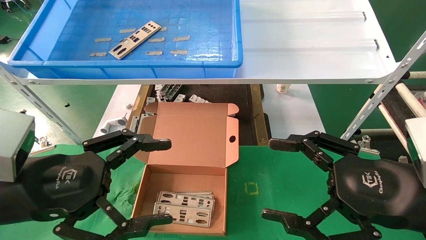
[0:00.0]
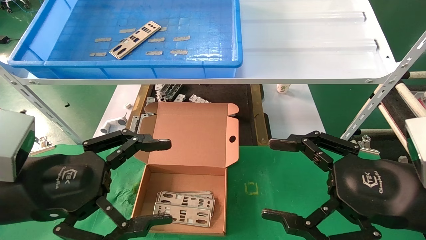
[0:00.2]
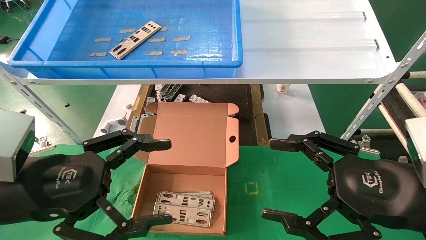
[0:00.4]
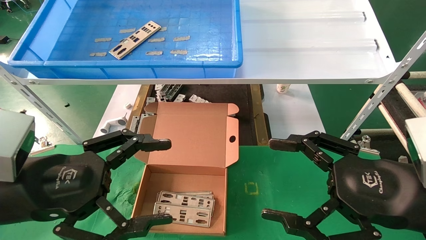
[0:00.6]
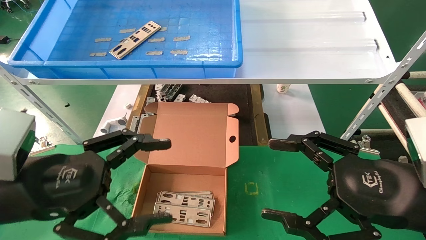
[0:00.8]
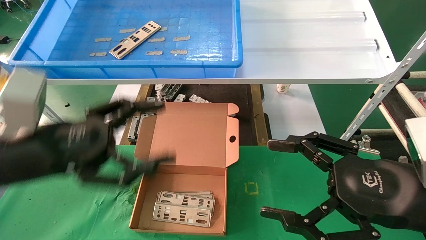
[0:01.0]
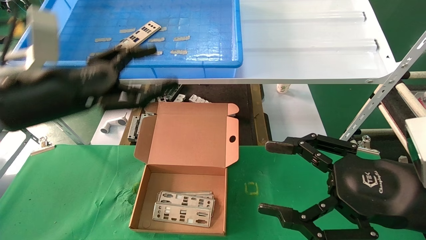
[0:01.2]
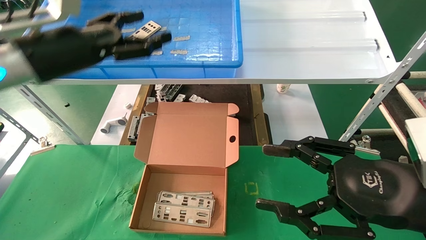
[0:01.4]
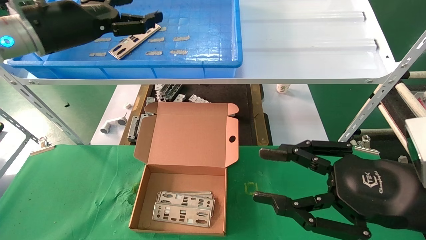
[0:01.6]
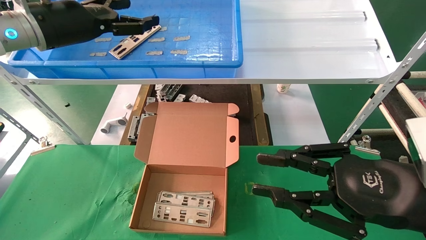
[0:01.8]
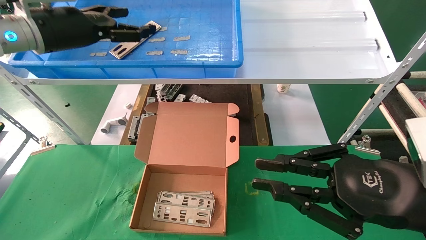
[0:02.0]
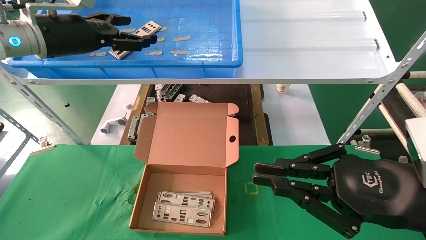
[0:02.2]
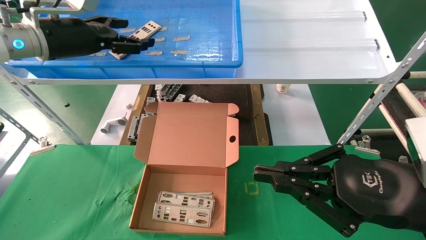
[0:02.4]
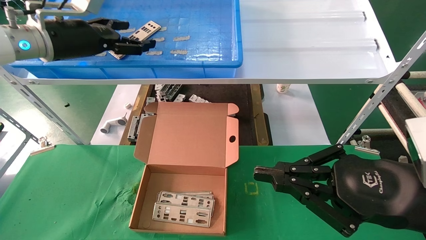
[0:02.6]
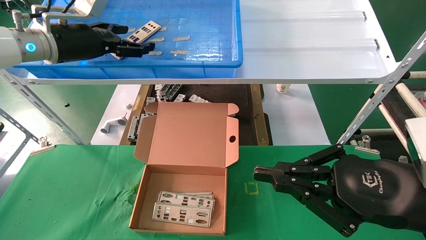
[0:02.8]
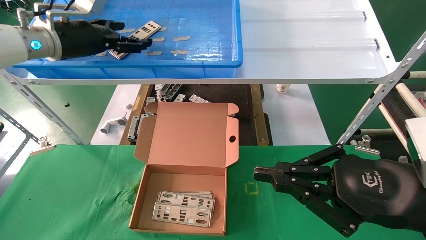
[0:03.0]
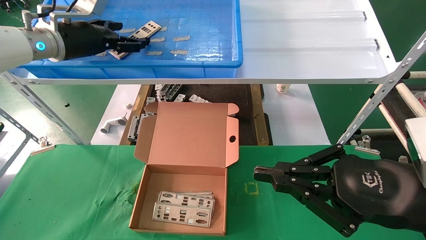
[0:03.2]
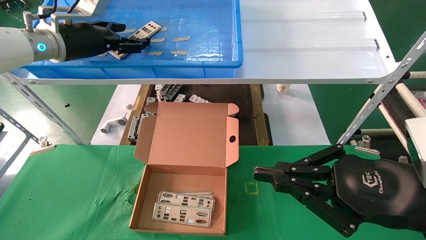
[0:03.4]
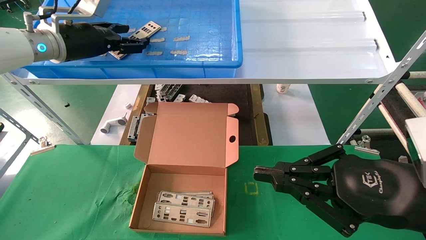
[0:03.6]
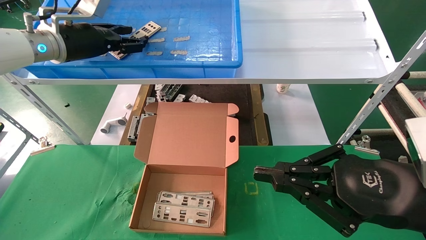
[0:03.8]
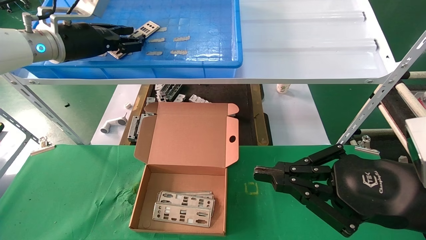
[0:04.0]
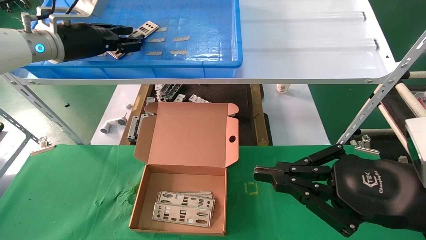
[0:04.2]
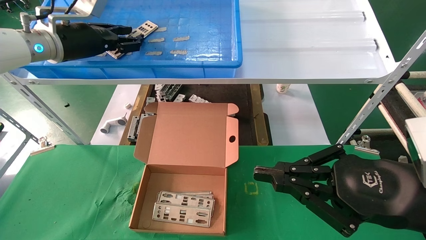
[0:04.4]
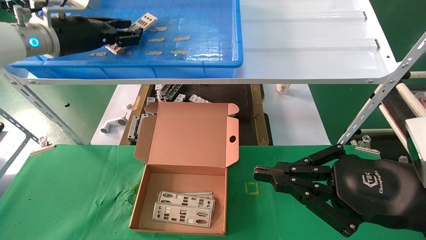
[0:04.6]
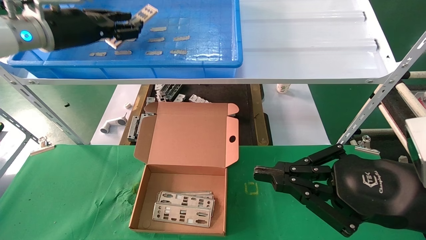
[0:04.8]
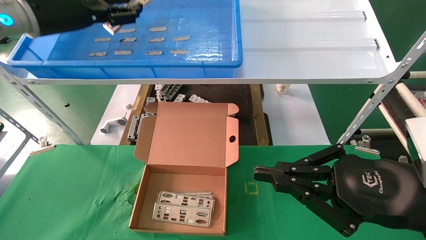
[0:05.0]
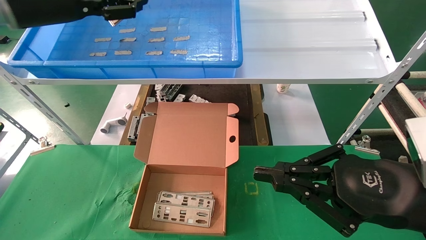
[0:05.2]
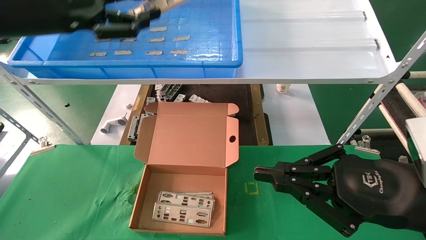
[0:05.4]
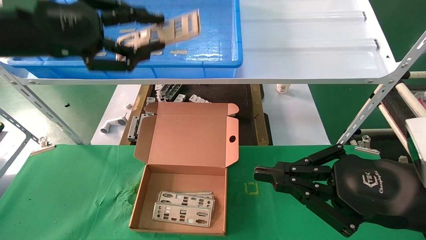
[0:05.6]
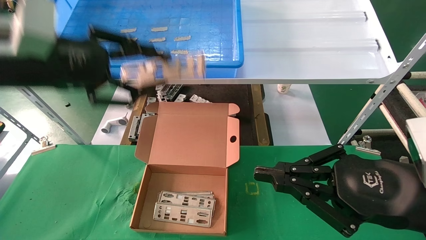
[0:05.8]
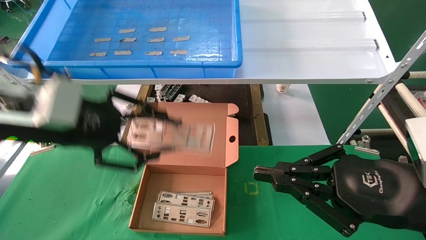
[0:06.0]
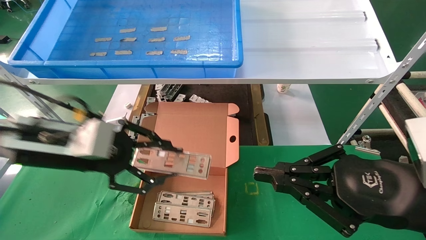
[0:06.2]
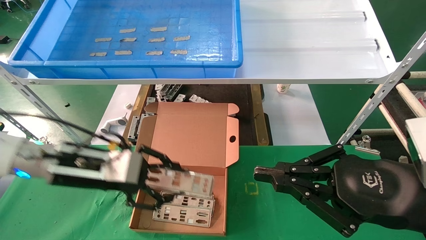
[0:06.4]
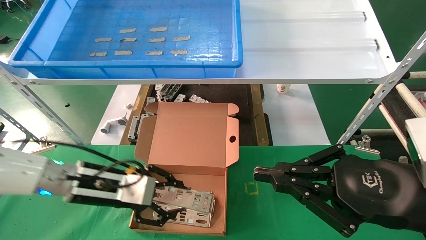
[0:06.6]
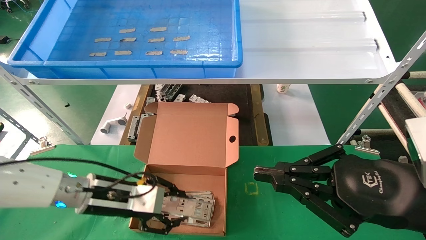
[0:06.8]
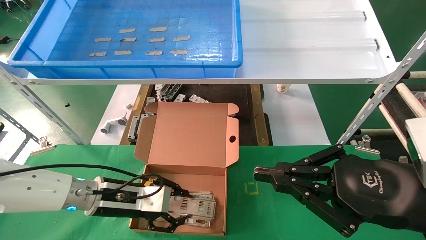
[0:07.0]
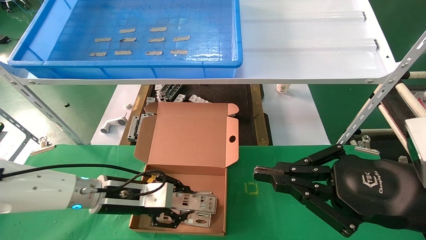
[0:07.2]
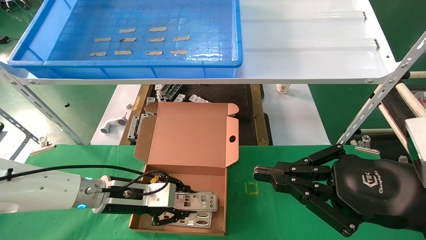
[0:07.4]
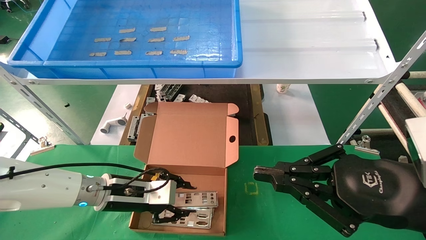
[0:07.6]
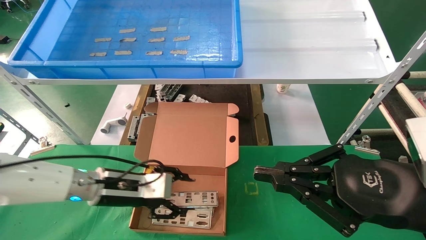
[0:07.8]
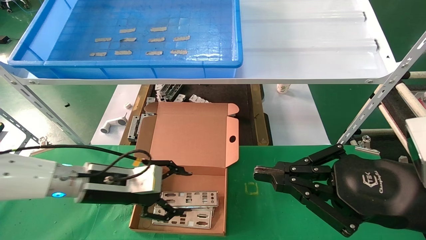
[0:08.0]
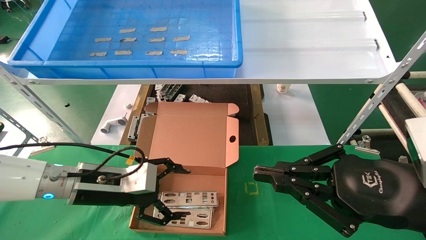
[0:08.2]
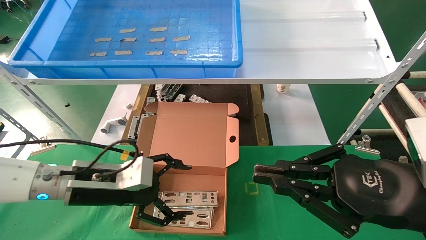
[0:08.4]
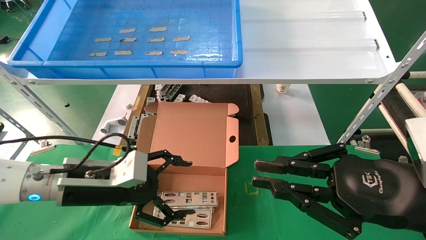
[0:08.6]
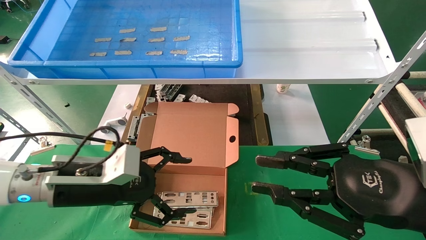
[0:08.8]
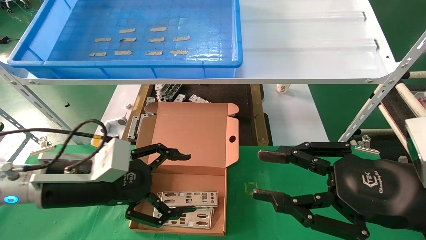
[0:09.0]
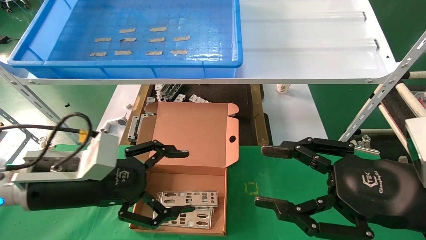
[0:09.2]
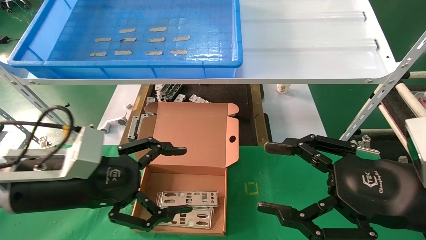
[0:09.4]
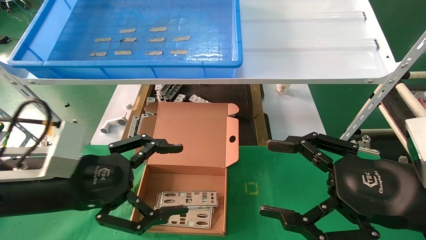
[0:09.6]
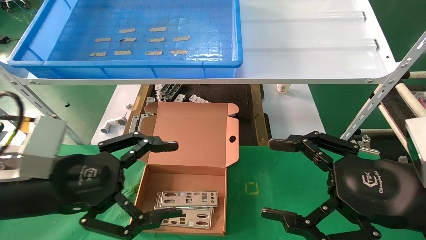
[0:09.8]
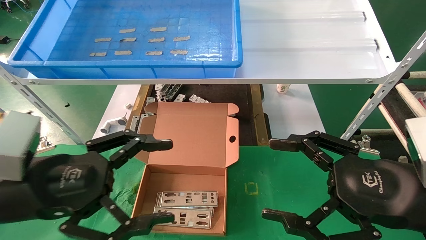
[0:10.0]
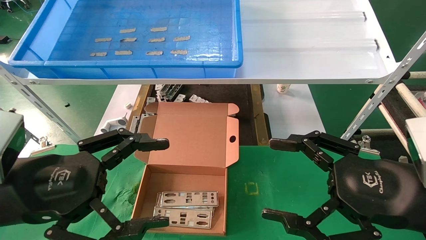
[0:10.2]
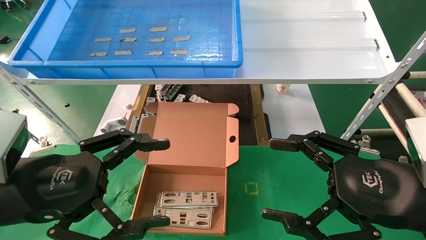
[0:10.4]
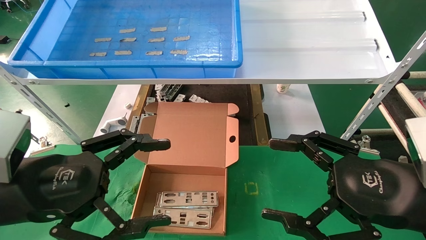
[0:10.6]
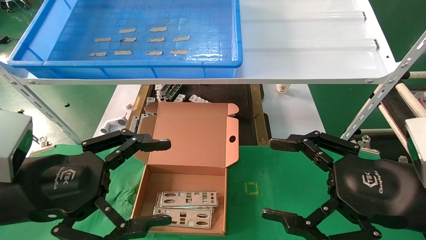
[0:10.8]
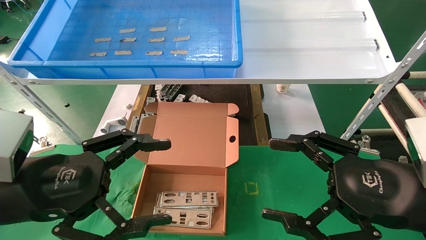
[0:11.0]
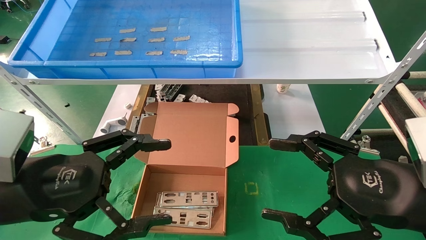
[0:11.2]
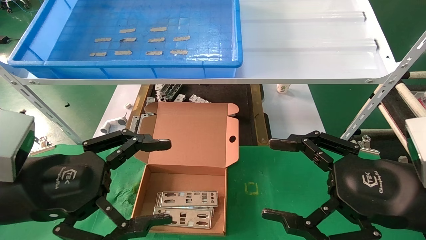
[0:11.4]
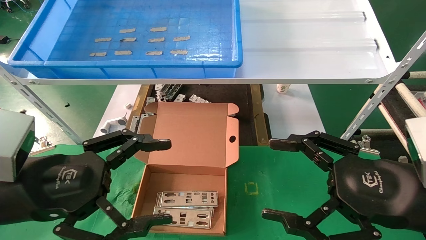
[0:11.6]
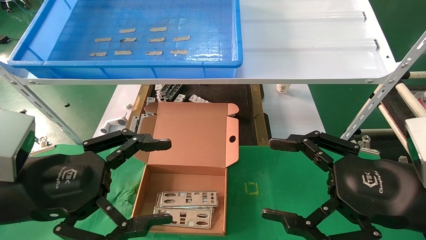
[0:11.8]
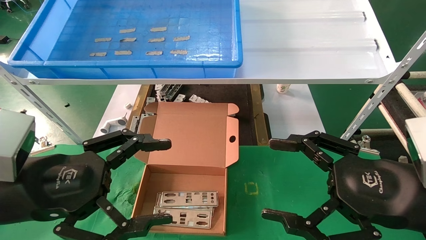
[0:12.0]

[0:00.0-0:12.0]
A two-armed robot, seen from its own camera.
Task of the whole recording: pick up the parts on the tray and put them in the cardboard box.
Step, 0:01.0 to 0:04.8: Pick up the IO bracket from the container box.
Step, 0:05.0 to 0:07.6: Place the IO bracket into the ingredient slot.
0:00.0 to 0:01.6: The left gripper travels forward and upward by approximately 25 cm. Meanwhile the right gripper closes its fingers.
0:01.6 to 0:03.0: The right gripper closes its fingers, while the left gripper is displaced forward by roughly 5 cm.
0:03.0 to 0:04.4: The left gripper closes.
0:04.4 to 0:06.0: The left gripper goes about 15 cm backward and downward.
0:06.0 to 0:07.6: The left gripper is displaced downward by some 20 cm.
0:07.6 to 0:09.0: The left gripper is displaced backward and upward by roughly 10 cm, and opens up.
0:09.0 to 0:10.4: The left gripper heads backward, covering some 10 cm. The right gripper opens up.
0:10.4 to 0:12.0: Both grippers stay put.

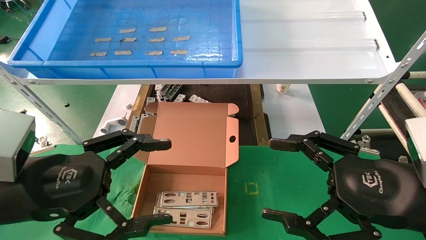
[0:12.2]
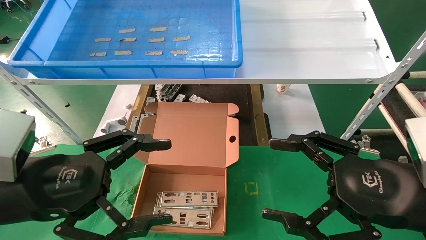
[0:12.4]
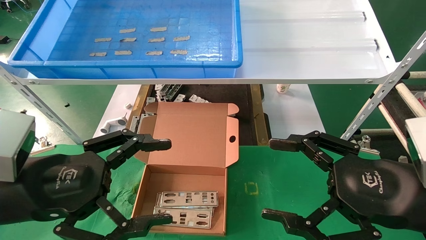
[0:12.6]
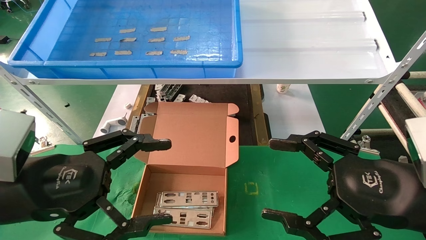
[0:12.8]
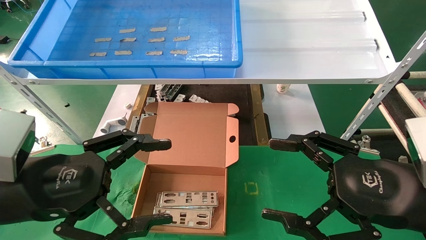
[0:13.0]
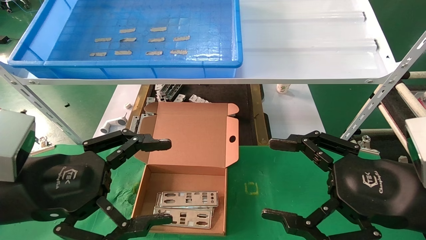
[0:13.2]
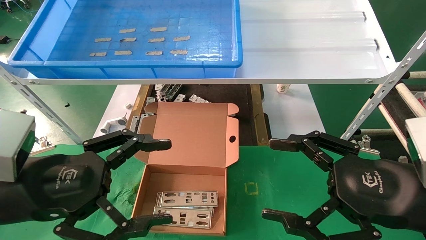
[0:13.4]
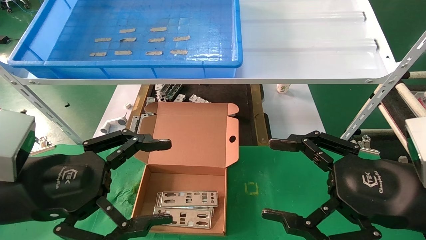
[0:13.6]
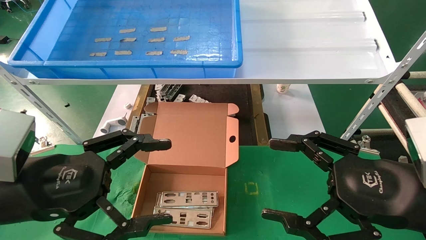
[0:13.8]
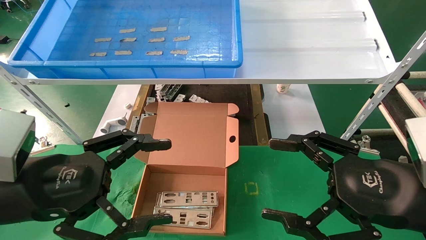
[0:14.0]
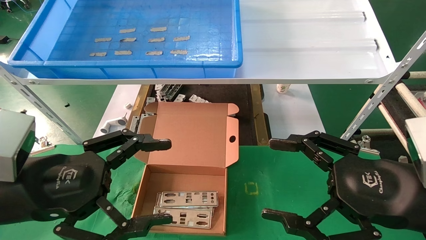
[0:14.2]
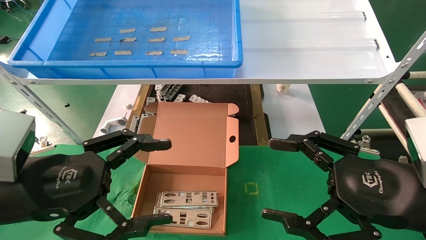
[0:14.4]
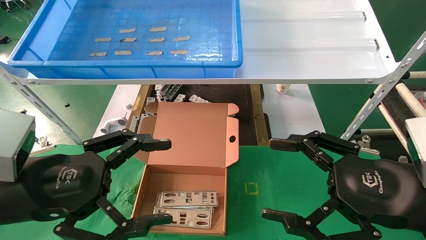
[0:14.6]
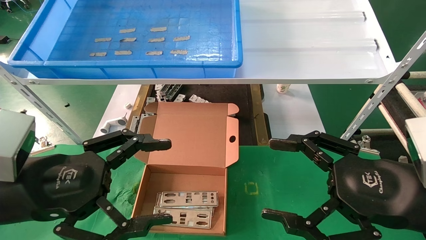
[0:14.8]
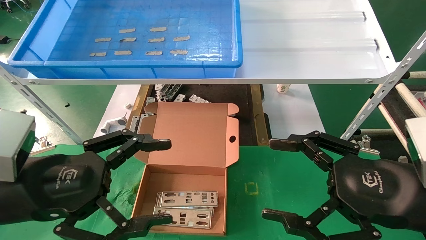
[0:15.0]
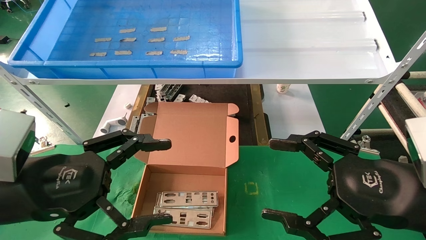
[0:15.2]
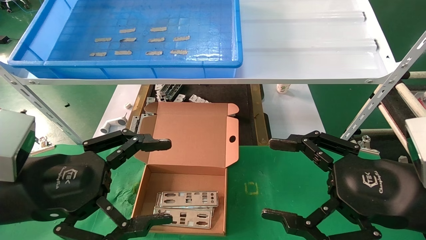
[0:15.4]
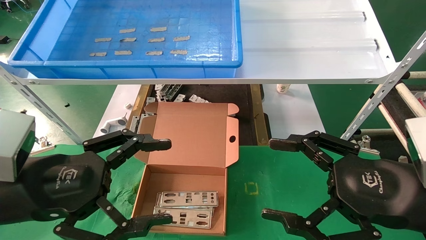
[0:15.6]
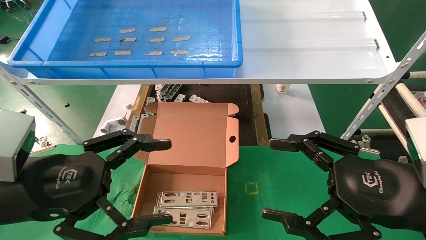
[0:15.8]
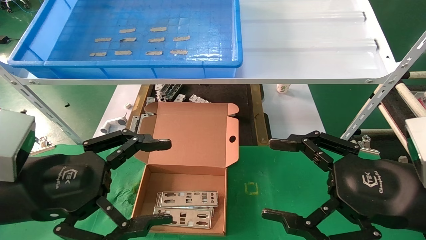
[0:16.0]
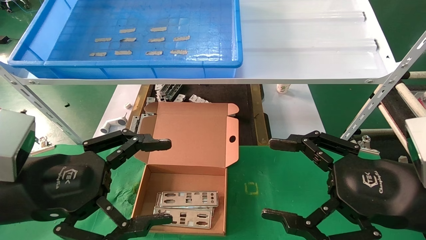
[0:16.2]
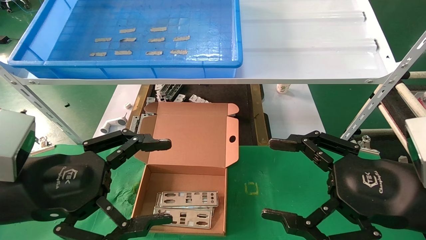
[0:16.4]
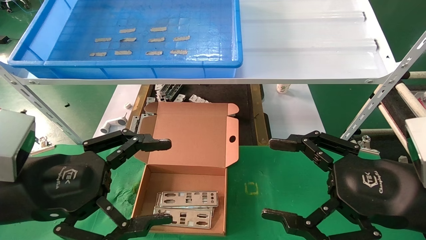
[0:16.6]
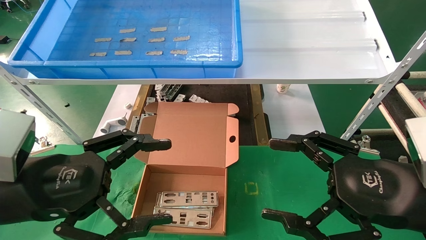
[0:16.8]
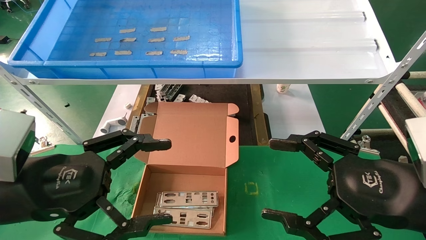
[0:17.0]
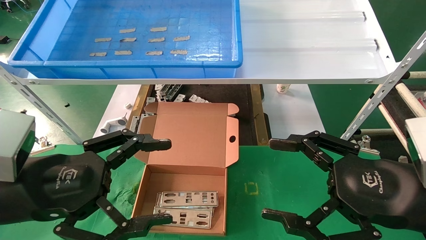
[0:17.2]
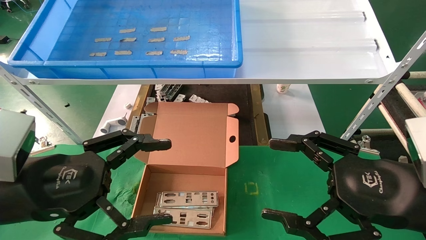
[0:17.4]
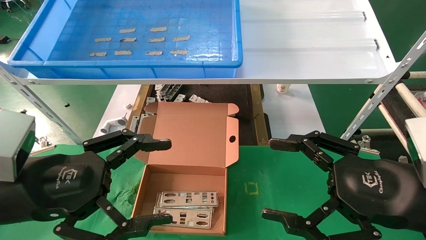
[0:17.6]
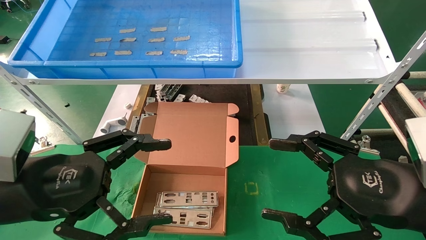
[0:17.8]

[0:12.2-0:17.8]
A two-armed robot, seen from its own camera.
Task of the whole recording: pick up the parts on the tray and put them in the cardboard box.
0:12.2 to 0:17.8: Both grippers stay about where they are.
